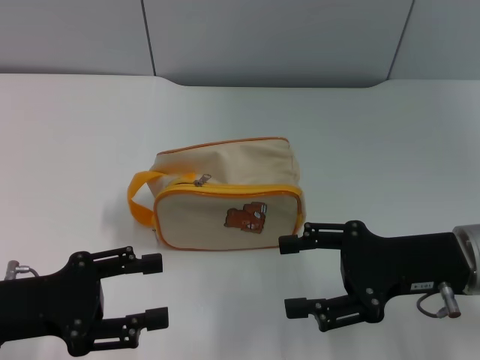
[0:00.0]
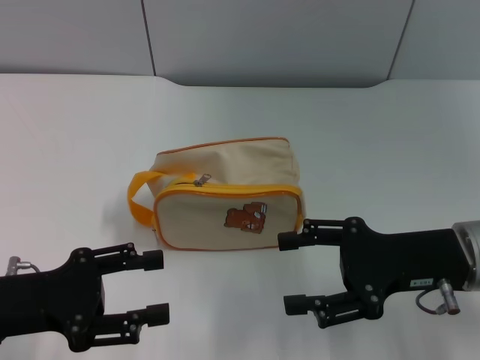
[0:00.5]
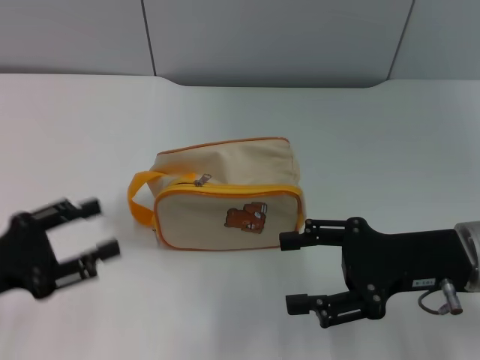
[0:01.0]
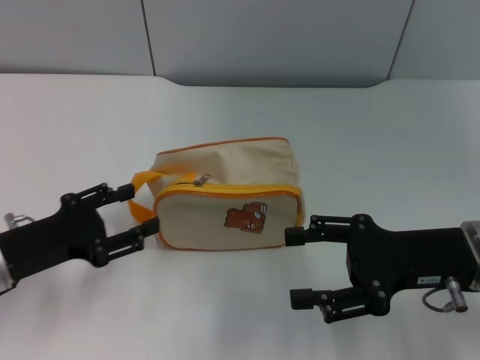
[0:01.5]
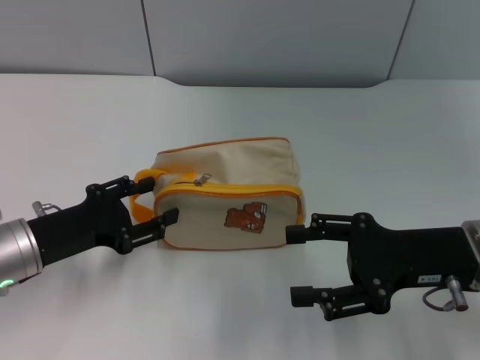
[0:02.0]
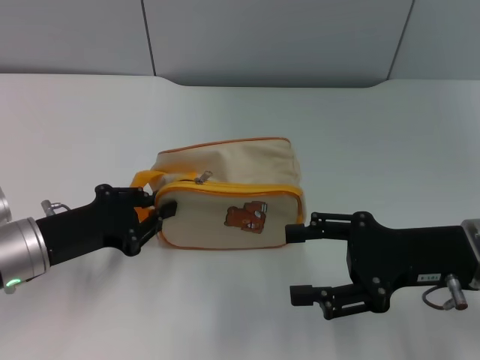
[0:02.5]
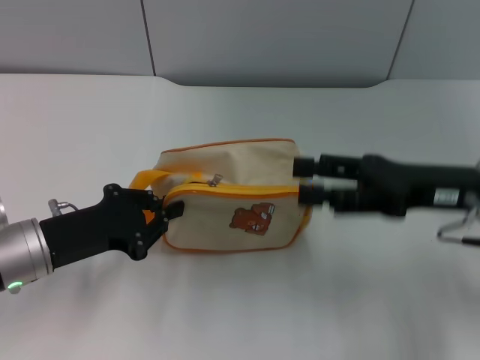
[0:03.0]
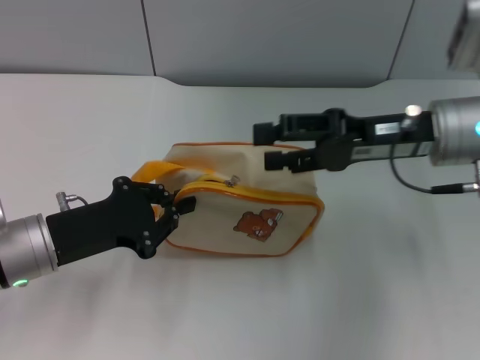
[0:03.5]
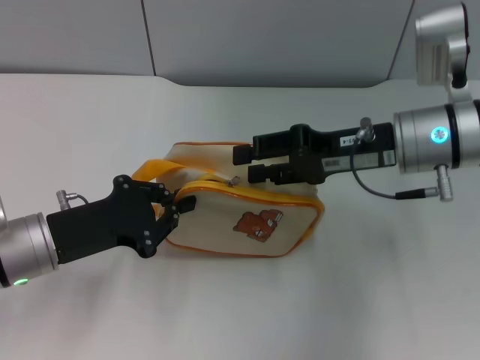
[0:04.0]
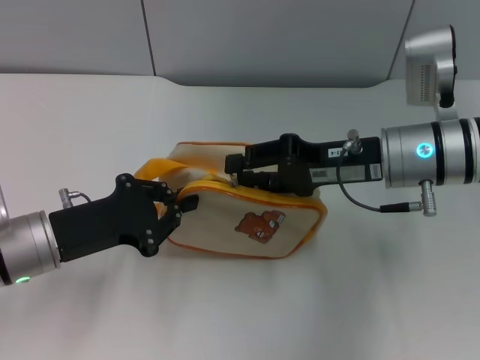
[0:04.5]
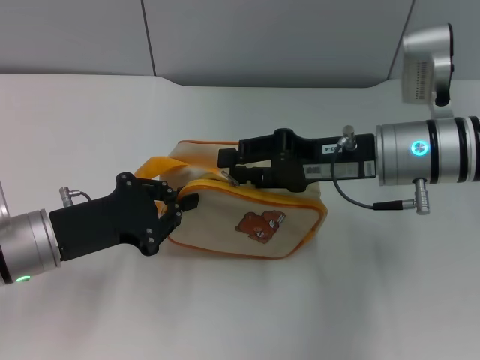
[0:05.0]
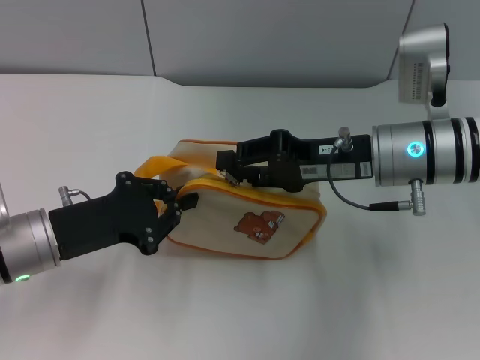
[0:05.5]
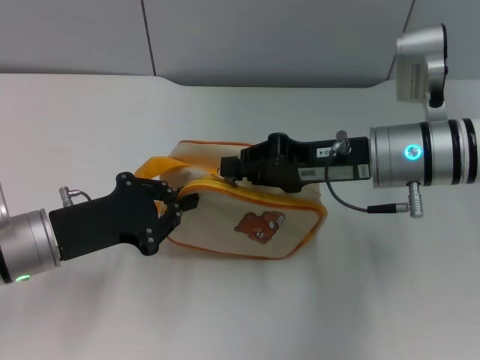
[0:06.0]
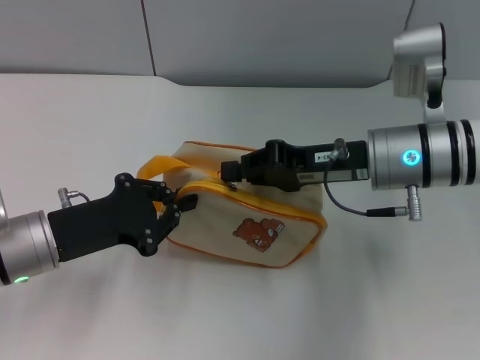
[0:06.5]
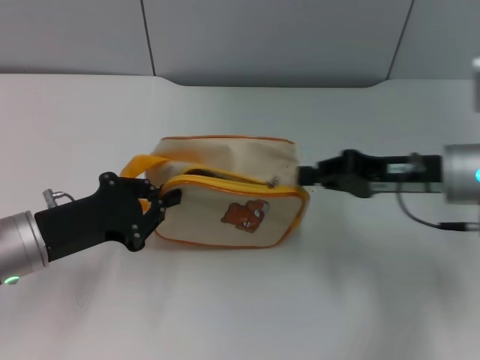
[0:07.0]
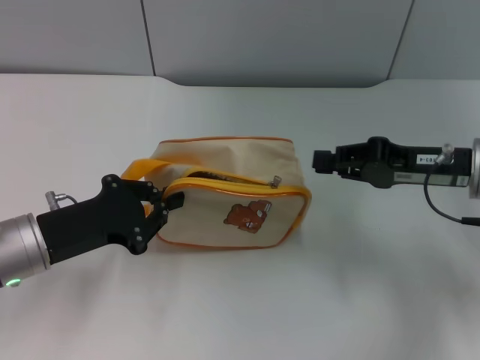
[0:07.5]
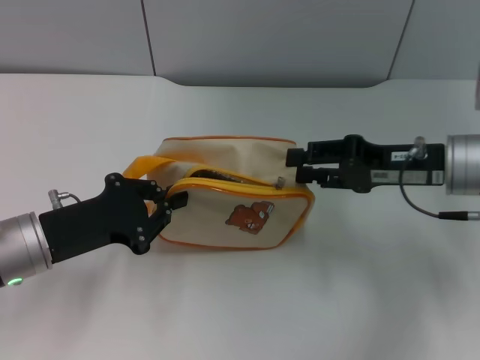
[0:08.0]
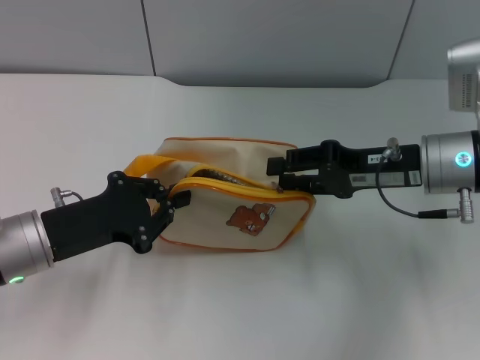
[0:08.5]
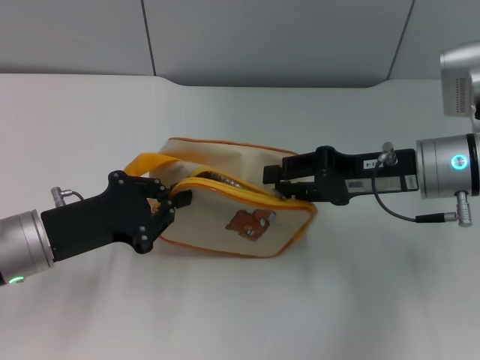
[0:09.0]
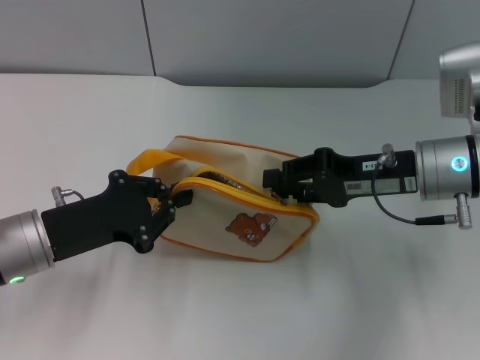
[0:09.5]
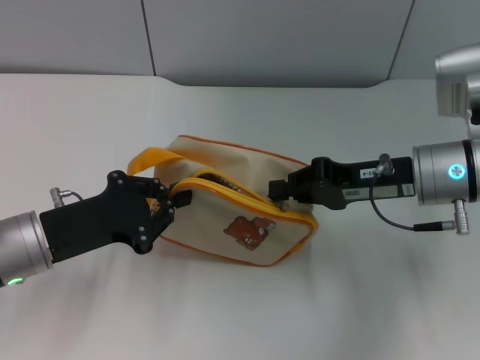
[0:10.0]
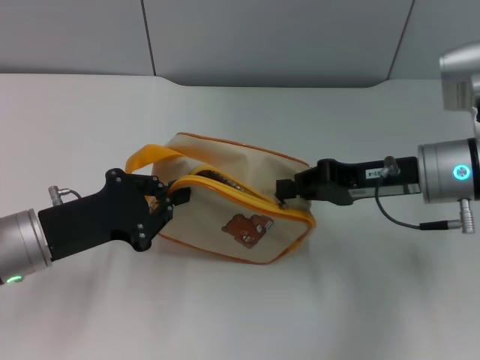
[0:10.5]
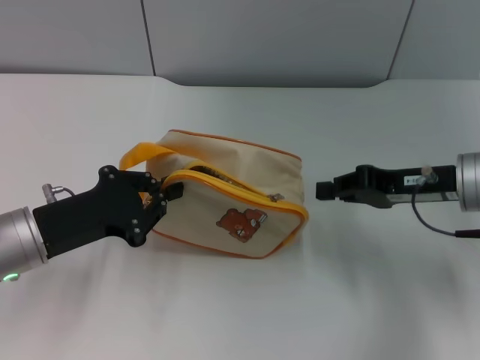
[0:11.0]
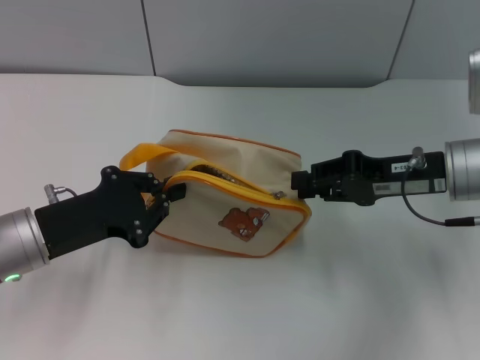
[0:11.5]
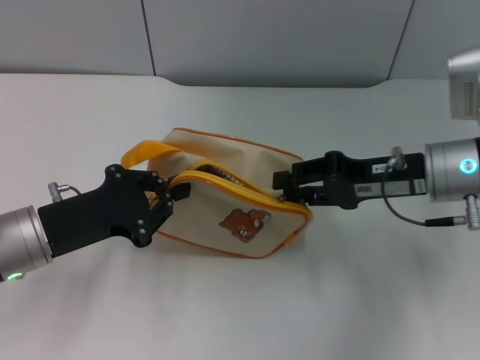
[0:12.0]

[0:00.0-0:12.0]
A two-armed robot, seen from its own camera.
Step, 0:00.0 to 0:03.0: Pick up the bag with left gripper.
0:00.0 to 0:02.0: The left gripper travels forward by some 5 cm.
0:02.0 to 0:04.0: The right gripper shifts some 10 cm forward and to the left, while the left gripper closes its fingers.
0:04.0 to 0:06.0: The right gripper closes up.
0:06.0 to 0:08.0: The right gripper moves to the right, about 5 cm, and opens its fingers.
0:08.0 to 0:10.0: The right gripper closes.
0:10.0 to 0:12.0: The grippers move only a little.

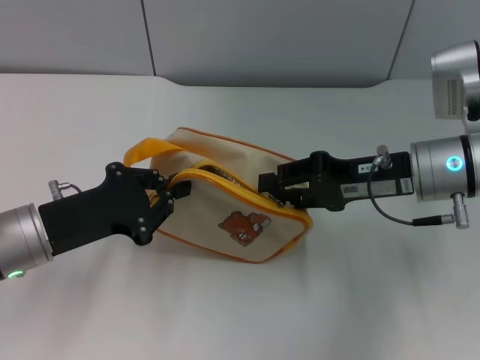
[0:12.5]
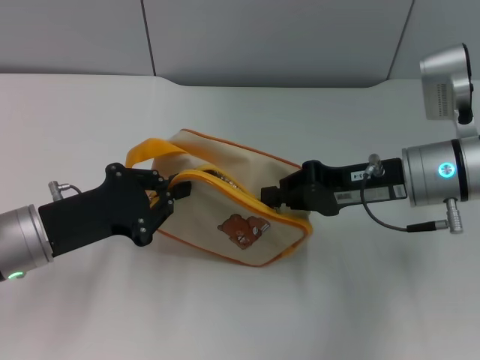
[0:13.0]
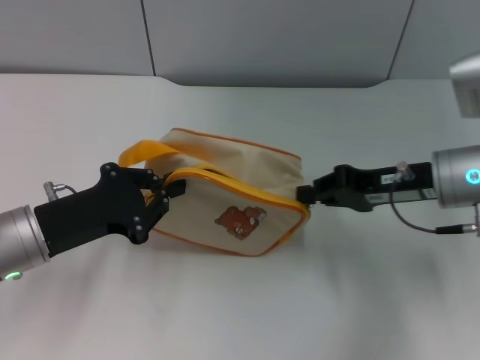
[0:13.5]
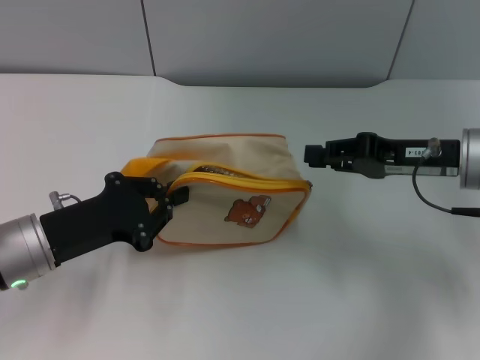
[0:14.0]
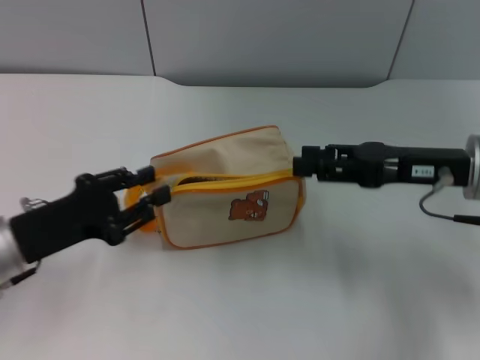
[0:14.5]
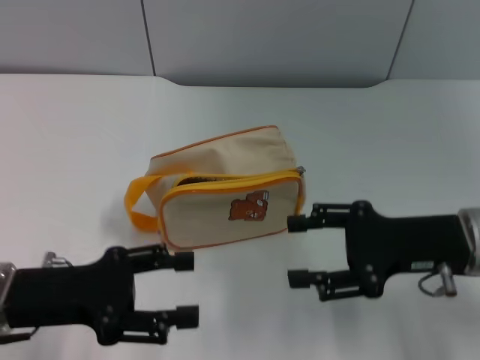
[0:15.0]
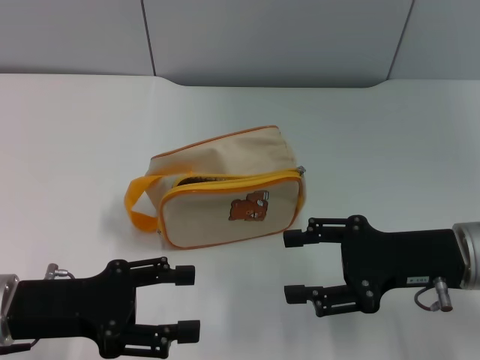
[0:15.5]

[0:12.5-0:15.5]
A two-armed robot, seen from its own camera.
0:12.5 to 0:14.0: The right gripper closes up.
0:14.0 to 0:15.5: The right gripper moves backward, approximately 5 cm, and opens. The left gripper opens.

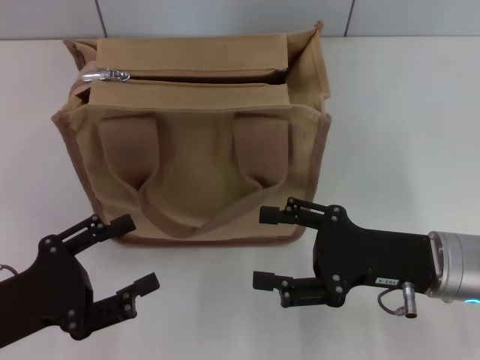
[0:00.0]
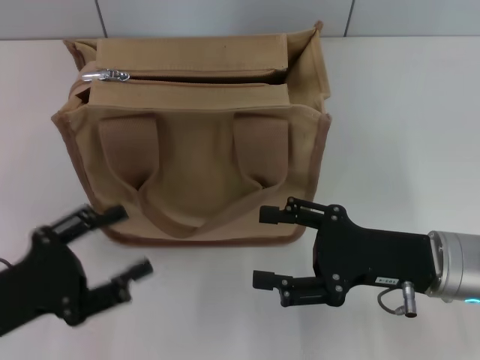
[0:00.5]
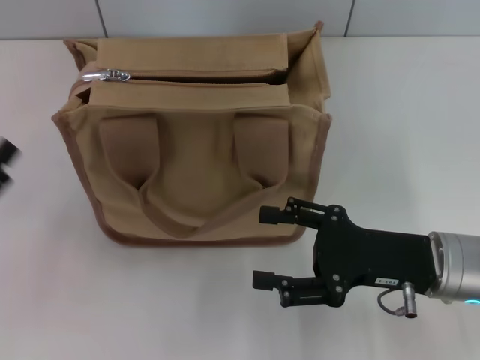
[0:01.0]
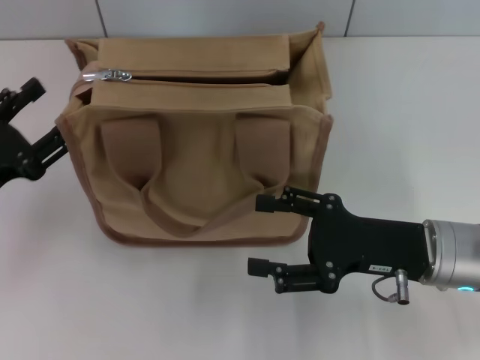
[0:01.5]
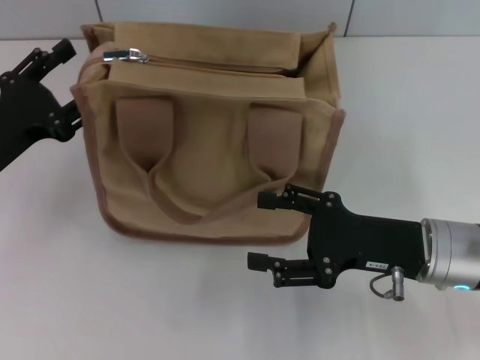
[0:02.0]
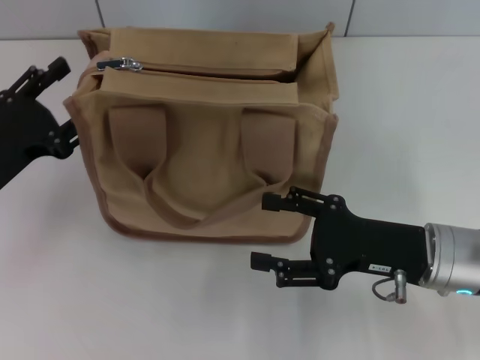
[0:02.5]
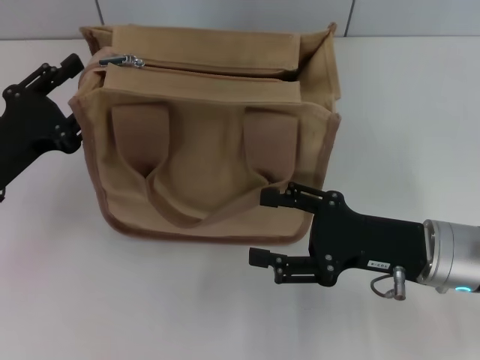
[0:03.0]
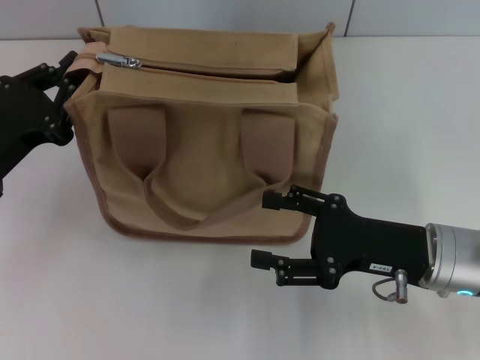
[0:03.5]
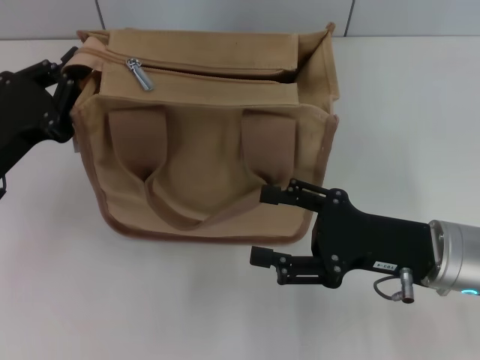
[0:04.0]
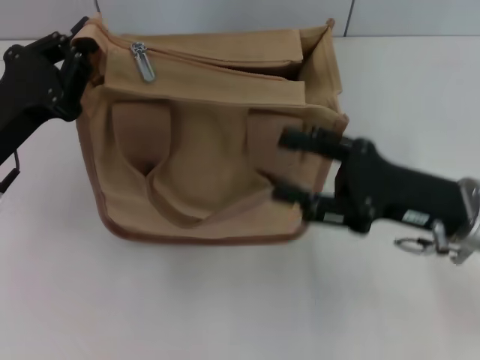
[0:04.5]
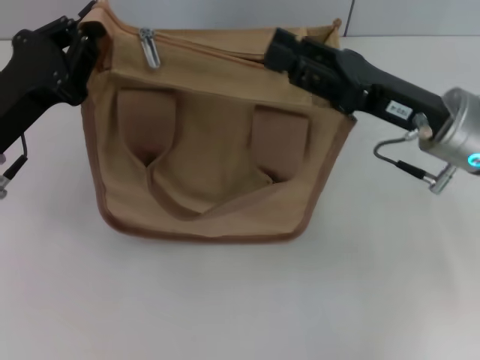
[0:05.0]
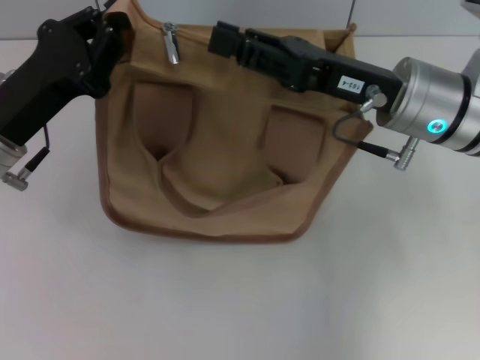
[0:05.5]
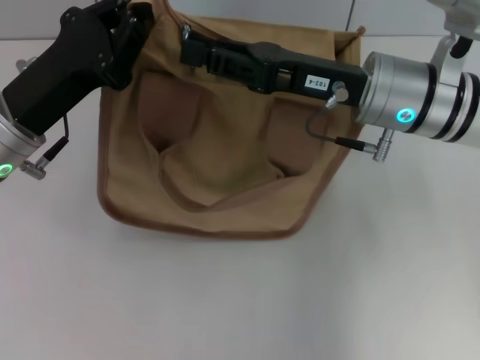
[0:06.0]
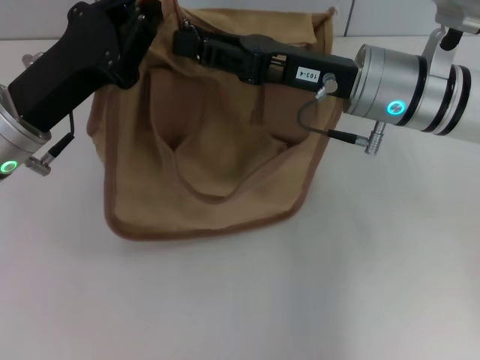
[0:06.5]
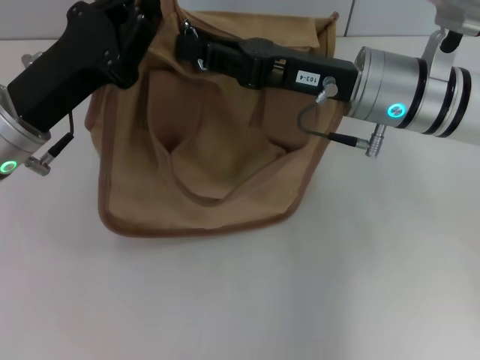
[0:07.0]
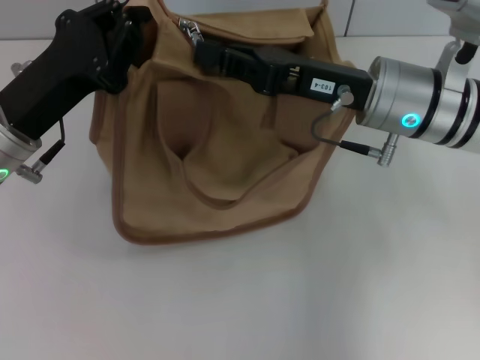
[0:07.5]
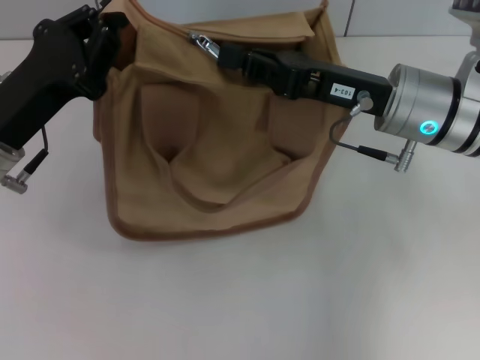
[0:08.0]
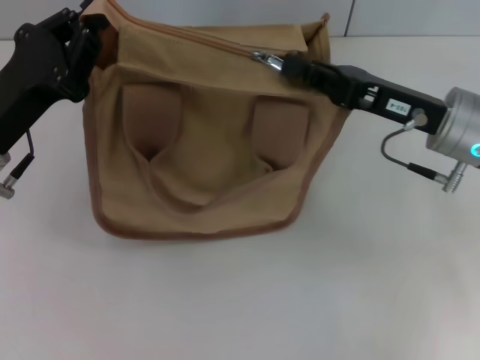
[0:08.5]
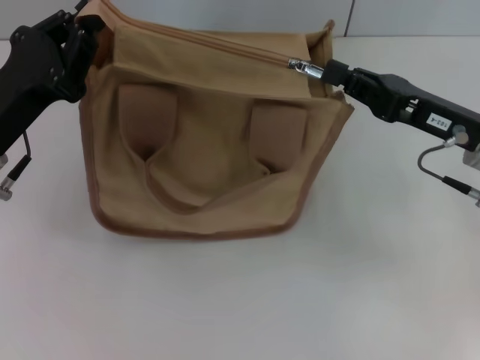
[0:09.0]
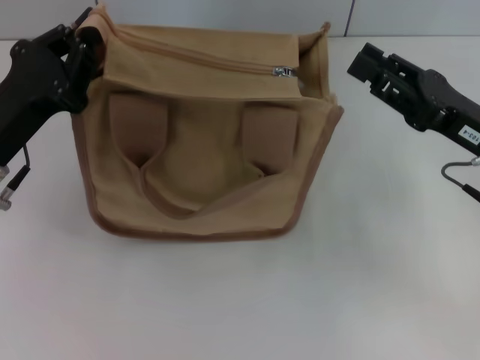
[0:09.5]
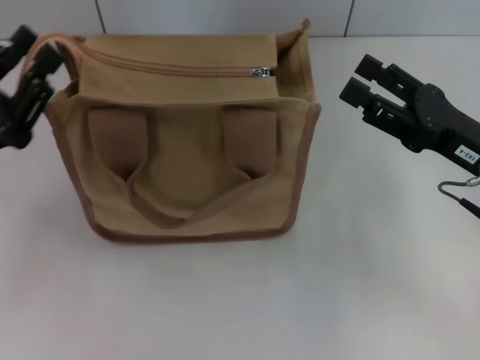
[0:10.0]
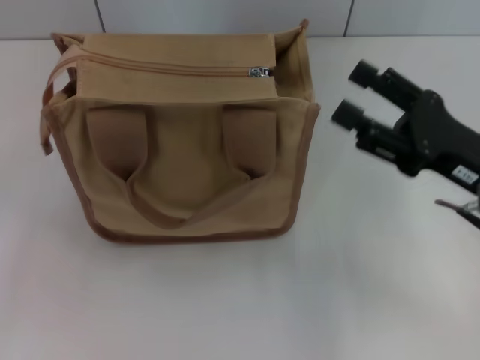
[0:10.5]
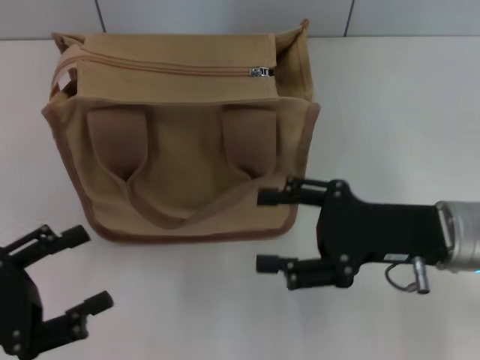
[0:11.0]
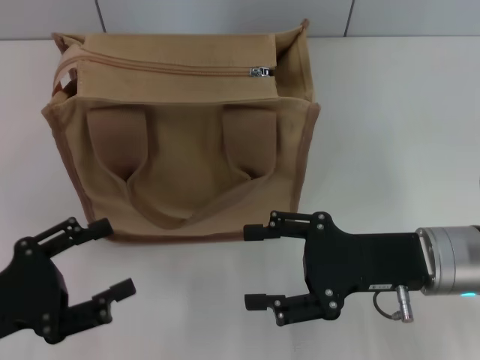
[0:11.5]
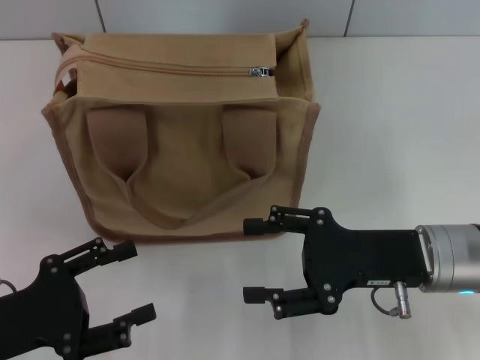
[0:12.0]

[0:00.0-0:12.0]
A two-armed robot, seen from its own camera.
Step, 0:00.0 to 0:09.0: Pull up the zipper with your right hand.
Step, 0:09.5 to 0:10.0: Grab the zipper with your left hand.
0:00.0 to 0:02.0: The left gripper travels forward by about 10 cm.
0:02.0 to 0:04.0: The left gripper closes up.
0:04.0 to 0:06.0: The right gripper goes roughly 15 cm forward, upward and to the left, and closes up; the left gripper goes roughly 5 cm to the right.
0:06.0 to 0:08.0: The right gripper closes its fingers.
0:08.0 to 0:10.0: The right gripper heads to the right and backward, covering about 10 cm, and opens up. Meanwhile the left gripper is displaced backward and to the left by some 10 cm.
0:10.0 to 0:12.0: The right gripper goes some 5 cm to the left. Meanwhile the left gripper heads backward, covering approximately 5 cm, and opens up.
